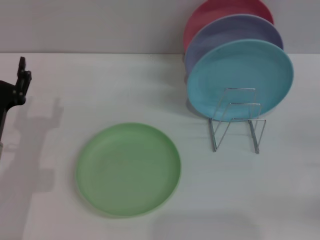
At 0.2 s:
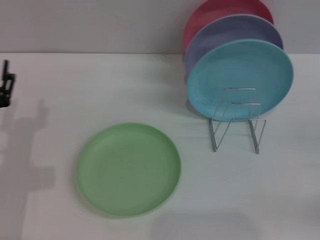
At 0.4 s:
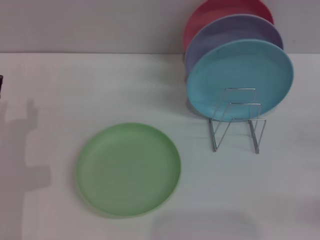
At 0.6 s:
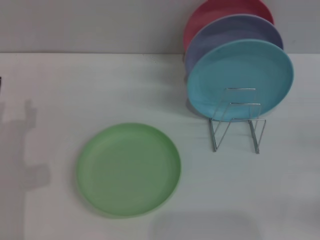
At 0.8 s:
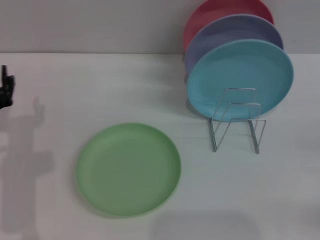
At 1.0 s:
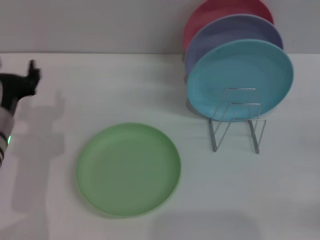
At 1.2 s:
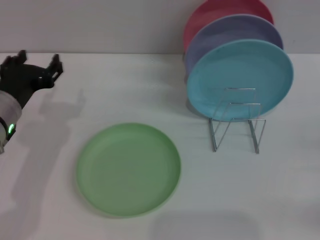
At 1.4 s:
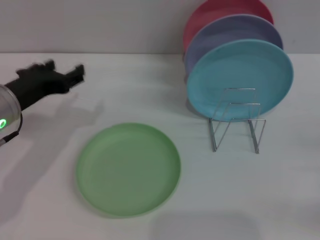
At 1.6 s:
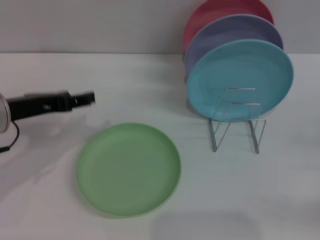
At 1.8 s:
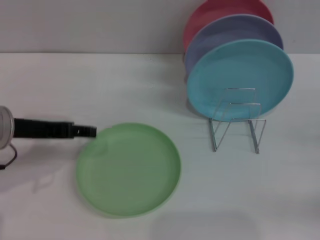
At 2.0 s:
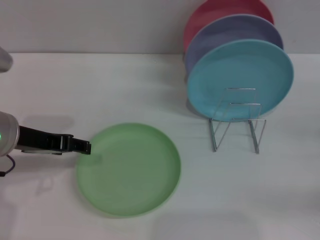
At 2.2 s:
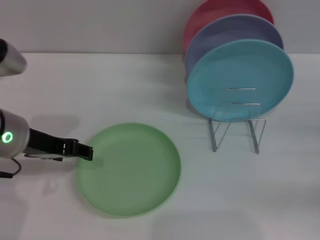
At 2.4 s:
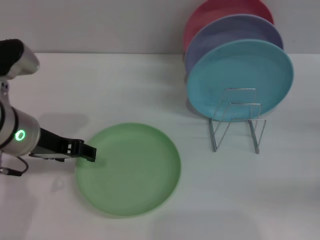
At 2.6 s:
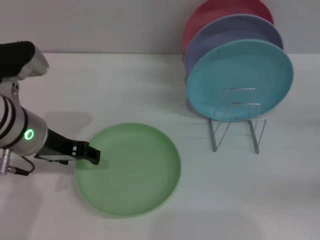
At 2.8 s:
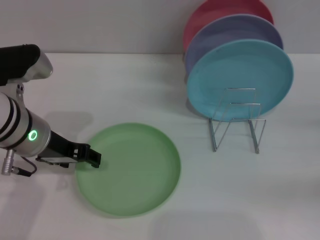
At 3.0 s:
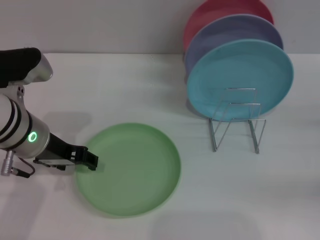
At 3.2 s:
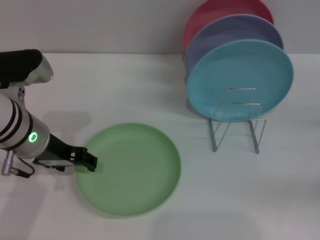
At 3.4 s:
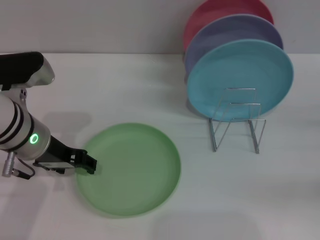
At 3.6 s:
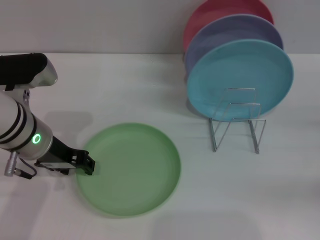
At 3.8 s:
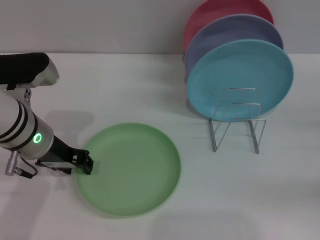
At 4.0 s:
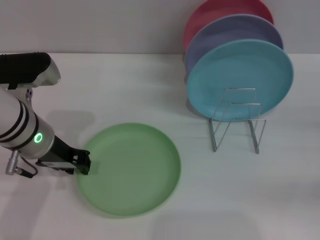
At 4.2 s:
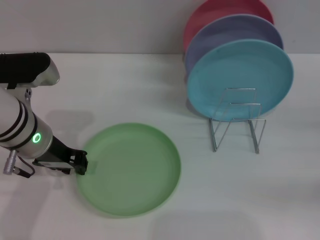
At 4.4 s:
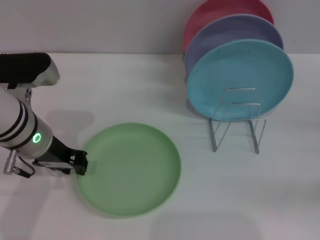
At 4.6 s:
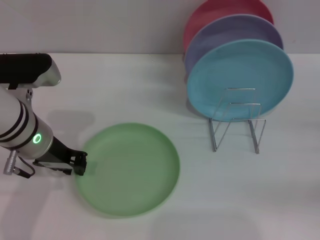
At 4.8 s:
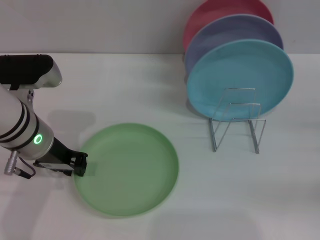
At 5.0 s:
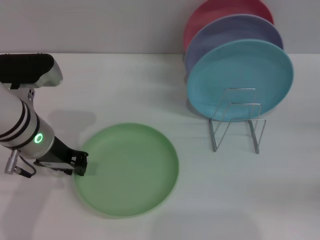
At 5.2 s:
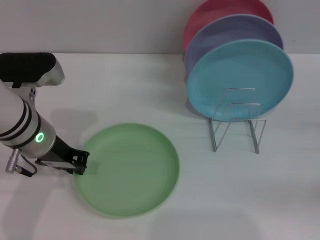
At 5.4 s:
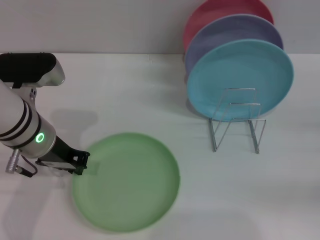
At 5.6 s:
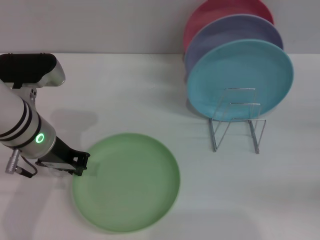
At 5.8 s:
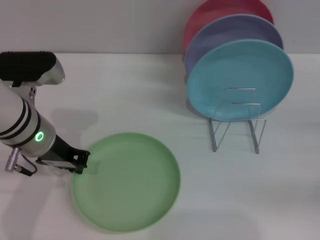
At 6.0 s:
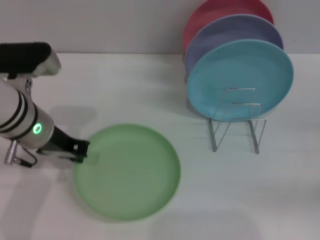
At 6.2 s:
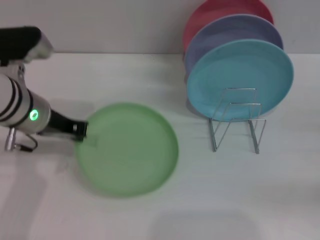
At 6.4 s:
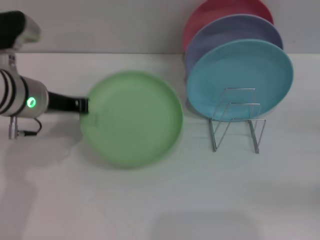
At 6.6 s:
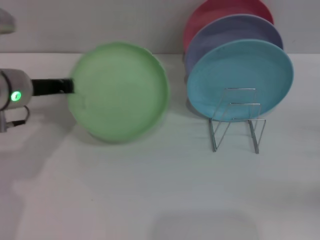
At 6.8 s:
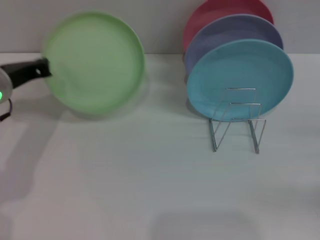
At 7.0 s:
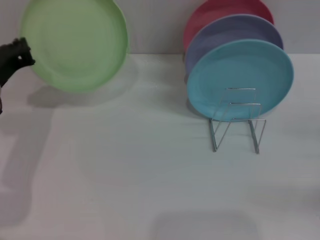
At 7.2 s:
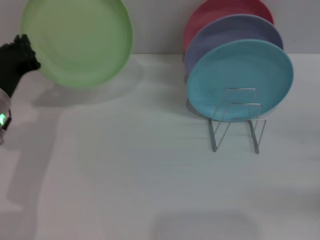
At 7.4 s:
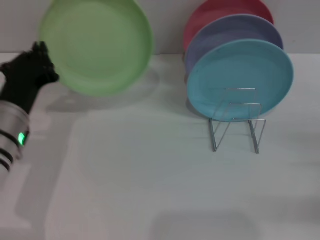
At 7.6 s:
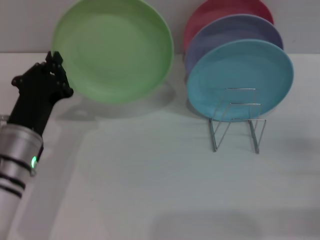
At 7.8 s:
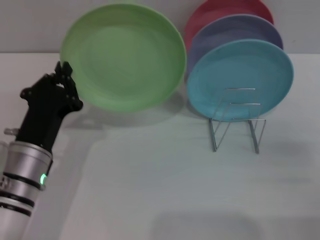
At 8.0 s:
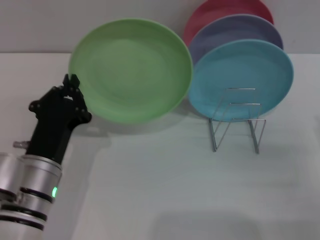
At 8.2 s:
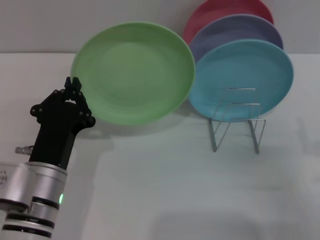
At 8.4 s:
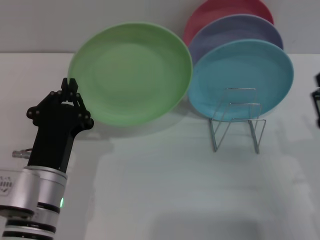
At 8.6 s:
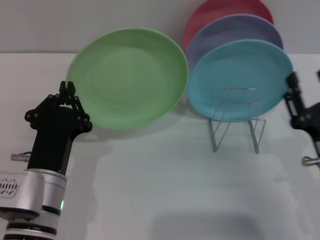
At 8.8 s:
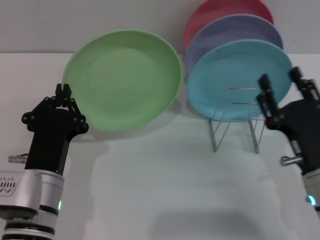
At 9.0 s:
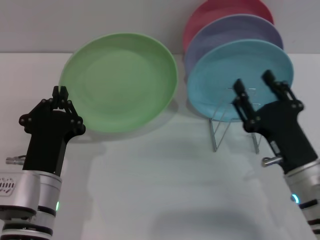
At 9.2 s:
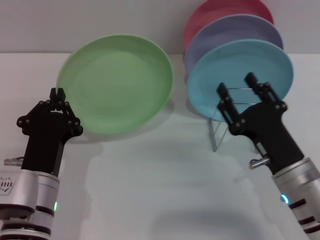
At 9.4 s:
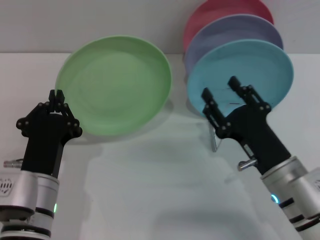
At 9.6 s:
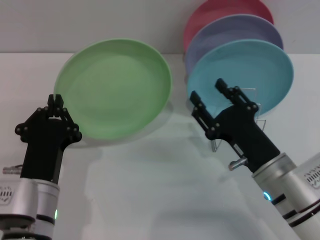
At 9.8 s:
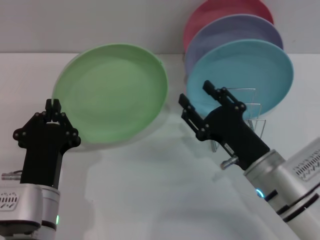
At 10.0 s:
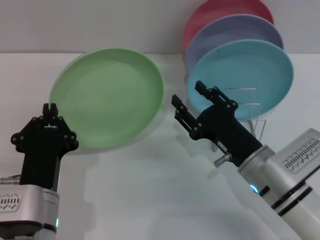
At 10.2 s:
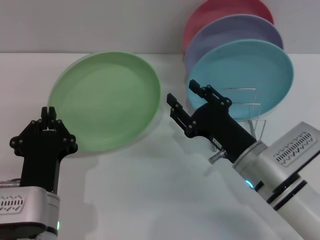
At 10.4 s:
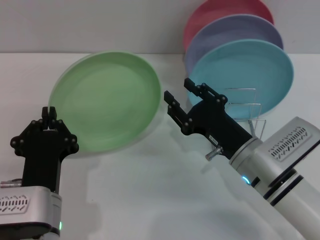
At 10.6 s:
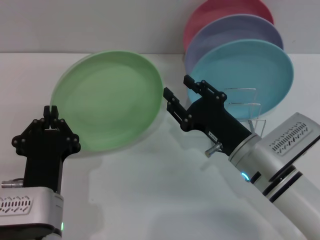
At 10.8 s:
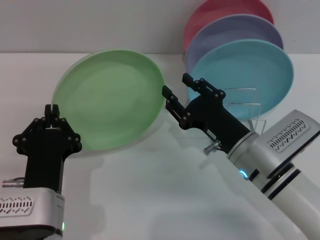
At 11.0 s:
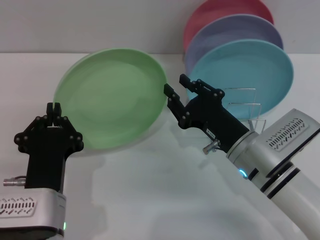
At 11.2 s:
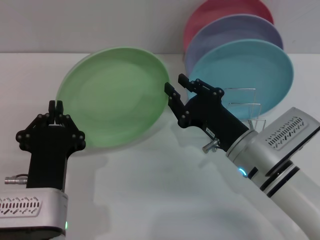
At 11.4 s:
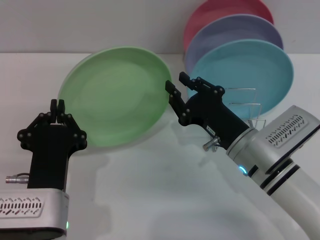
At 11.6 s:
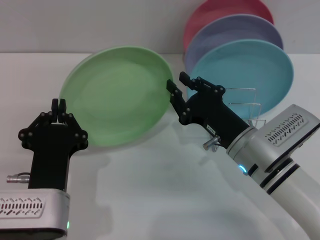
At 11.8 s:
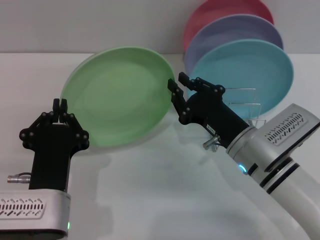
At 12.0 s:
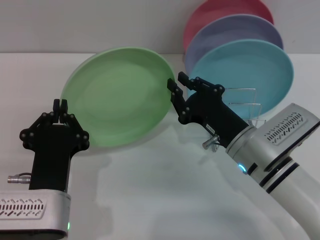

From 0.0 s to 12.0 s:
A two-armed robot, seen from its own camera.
Task of the whole recording: Grip the plate with one hand, pass it to the other, then set it on the shelf.
Step, from 0.0 s to 6.4 s: Pick up the plate with the left gripper.
From 0.0 s to 1.6 s: The left gripper is displaced upward by roughly 10 cm.
From 1.6 s to 3.0 s: The left gripper moves to the right, some 5 cm.
From 3.0 s to 4.4 s: The left gripper closes its fingers.
From 4.4 s to 6.0 s: The left gripper closes.
From 6.0 s to 7.6 s: The right gripper travels to the left by roughly 5 cm; the left gripper is displaced downward and backward by some 10 cm.
From 7.6 s to 9.0 s: The left gripper is displaced backward by roughly 5 cm; the right gripper heads to the left, covering roughly 15 cm.
From 9.0 s to 10.4 s: The right gripper heads to the left, covering roughly 5 cm.
From 10.4 s to 12.0 s: The right gripper closes its fingers.

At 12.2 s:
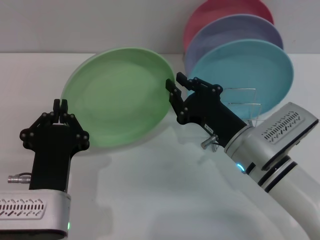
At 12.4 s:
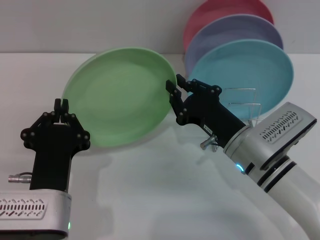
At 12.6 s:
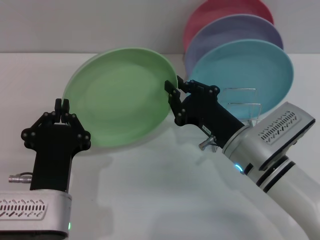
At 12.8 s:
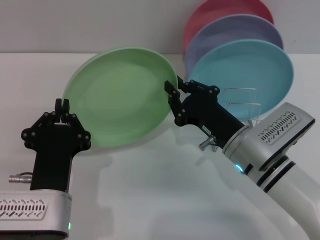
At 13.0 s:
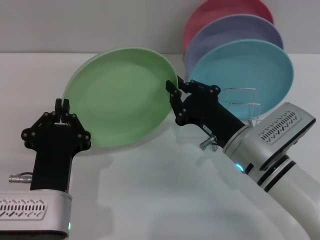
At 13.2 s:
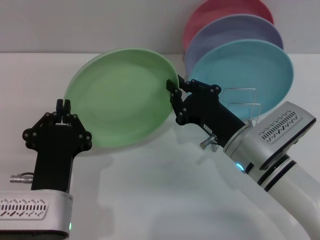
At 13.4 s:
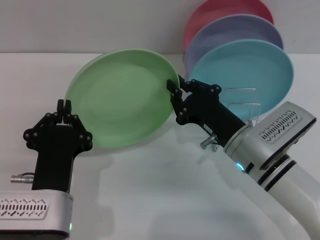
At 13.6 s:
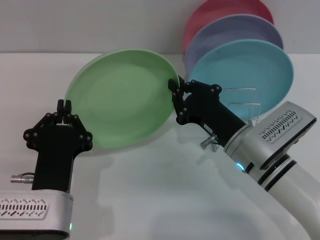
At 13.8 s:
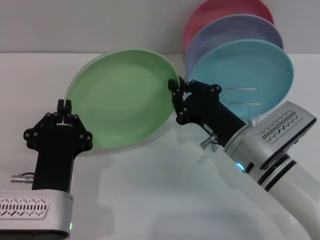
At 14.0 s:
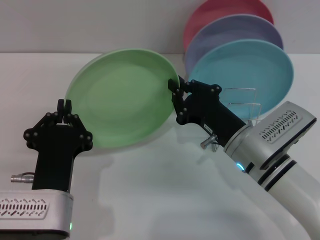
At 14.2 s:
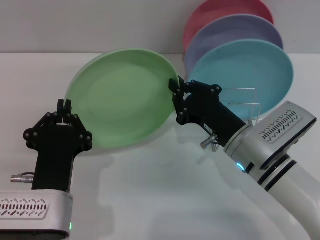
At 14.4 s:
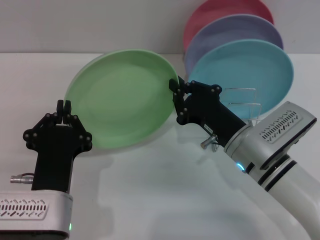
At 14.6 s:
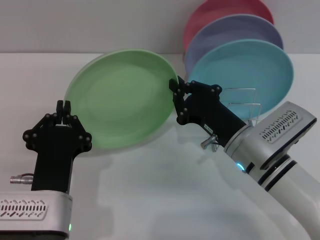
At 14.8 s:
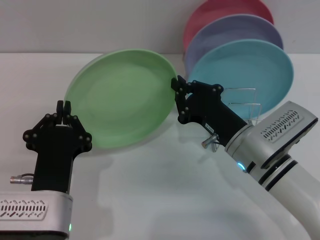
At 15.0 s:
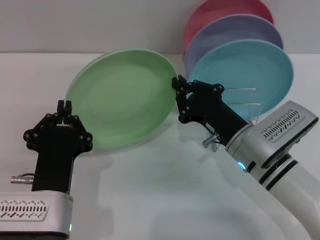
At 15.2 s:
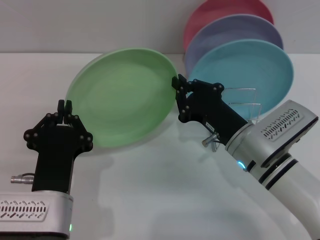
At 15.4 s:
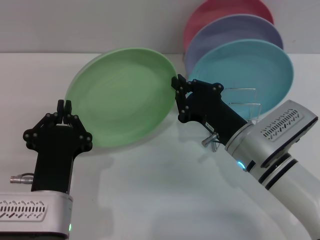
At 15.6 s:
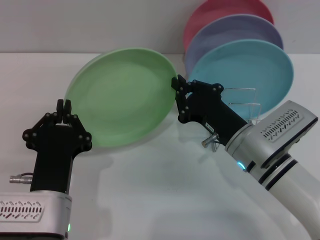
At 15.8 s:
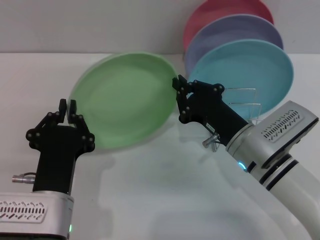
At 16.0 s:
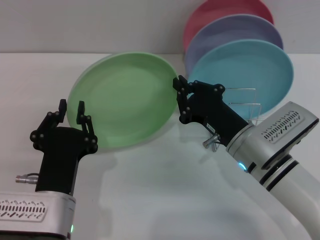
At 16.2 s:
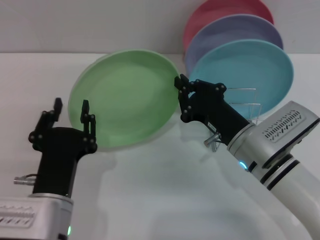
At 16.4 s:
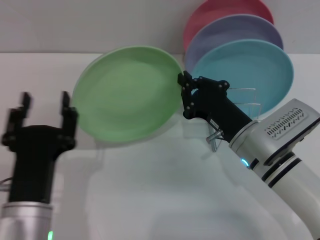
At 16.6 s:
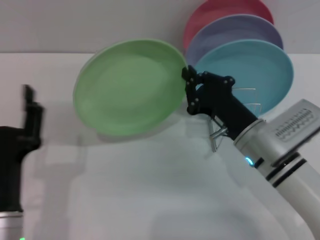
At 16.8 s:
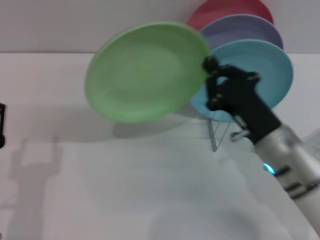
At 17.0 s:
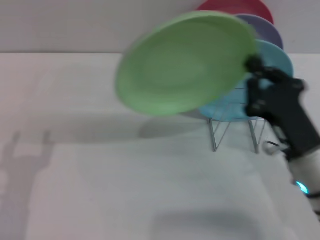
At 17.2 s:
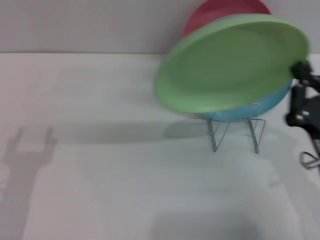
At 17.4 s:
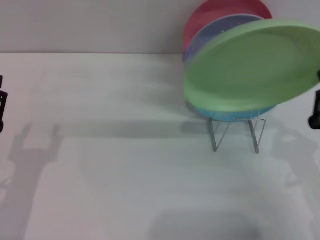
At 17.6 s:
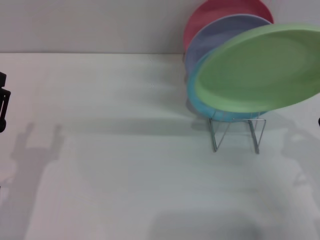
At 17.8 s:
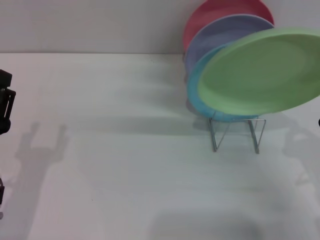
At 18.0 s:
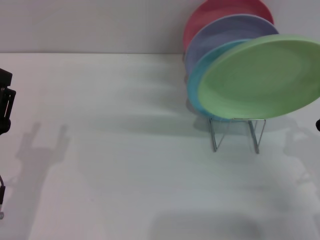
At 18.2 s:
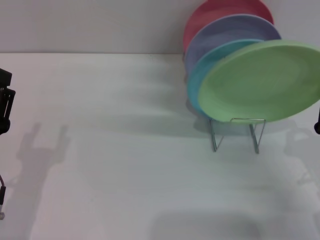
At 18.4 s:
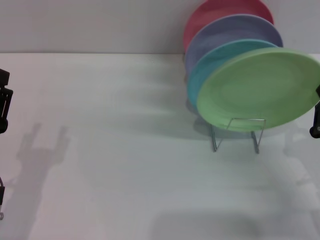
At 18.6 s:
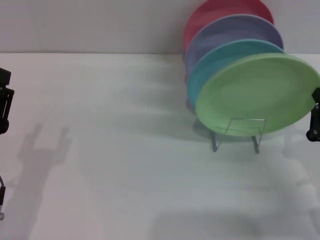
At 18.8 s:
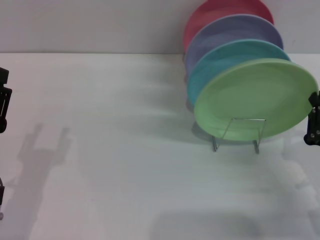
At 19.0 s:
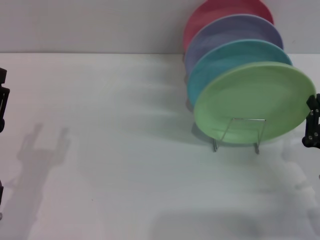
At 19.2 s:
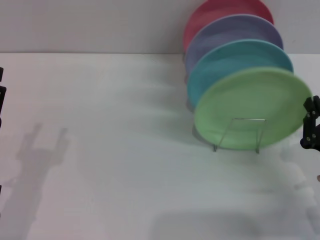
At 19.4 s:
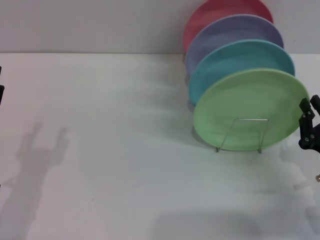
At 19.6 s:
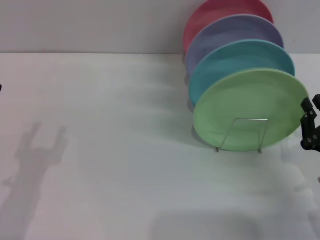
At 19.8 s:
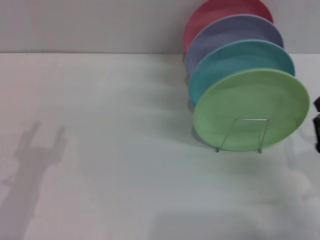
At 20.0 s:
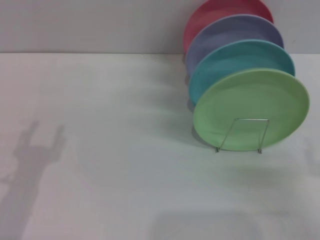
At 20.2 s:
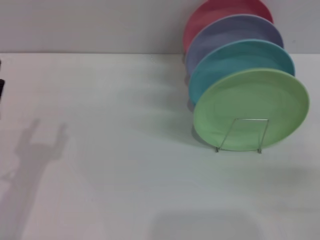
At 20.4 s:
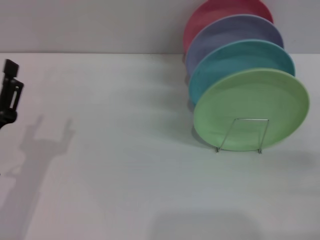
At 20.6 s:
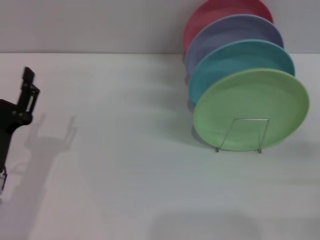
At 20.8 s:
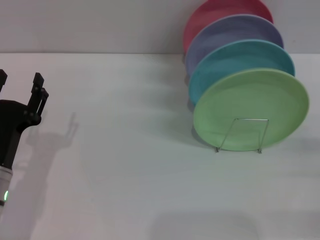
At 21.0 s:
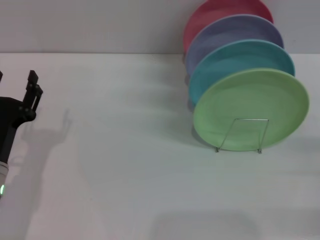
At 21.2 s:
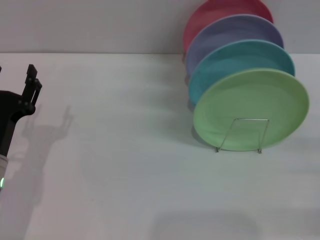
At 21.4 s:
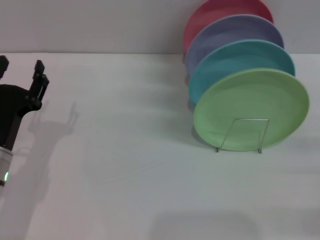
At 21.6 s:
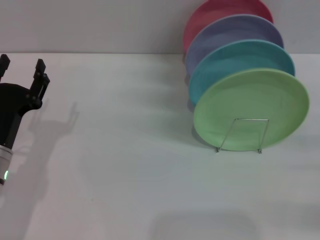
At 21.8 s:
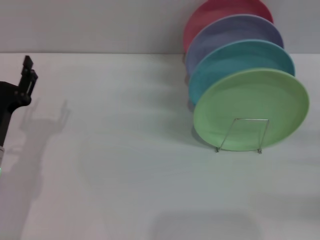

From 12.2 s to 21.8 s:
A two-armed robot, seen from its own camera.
Task of the whole recording: Grip the plate with one hand, pass it to the other, then set it on the shelf.
Step, from 12.2 s to 16.2 s: Pass the plate from the left gripper to the right gripper.
Step, from 16.6 s to 19.6 s: Place the plate on the shelf with the right gripper.
From 12.2 s to 15.4 s: The two grippers keep their place.
From 15.4 s to 17.0 s: The left gripper is displaced to the left by some 10 cm, and opens up, while the right gripper goes some 10 cm backward and to the right.
From 17.0 s to 18.6 s: The right gripper moves to the right, some 10 cm.
From 18.6 s to 20.2 s: The right gripper travels backward and to the right by about 10 cm, and opens.
From 20.2 s to 21.8 s: The left gripper travels forward by roughly 5 cm.
